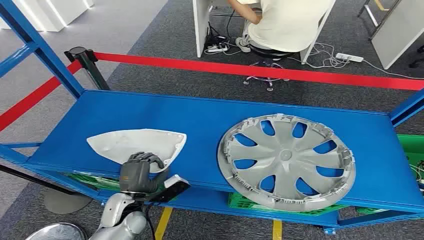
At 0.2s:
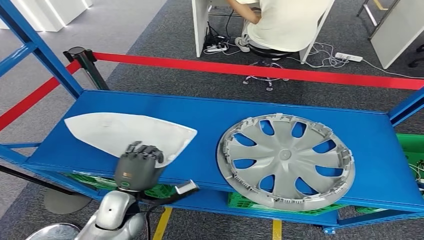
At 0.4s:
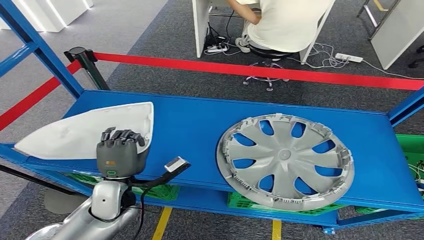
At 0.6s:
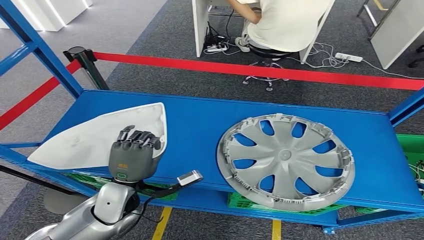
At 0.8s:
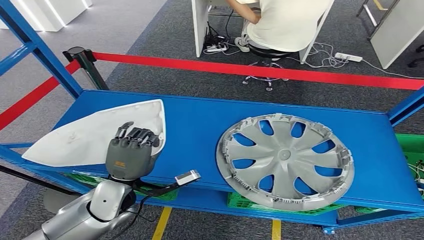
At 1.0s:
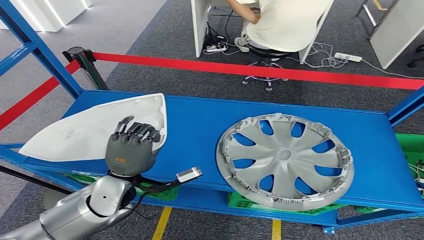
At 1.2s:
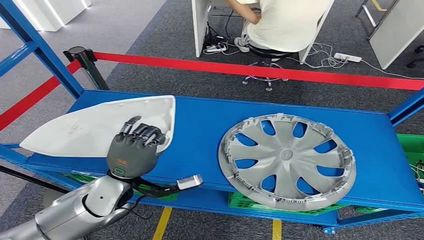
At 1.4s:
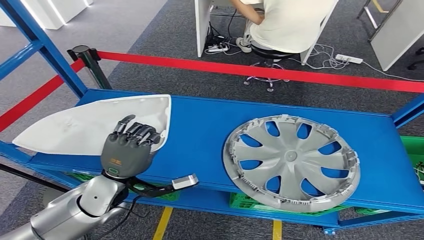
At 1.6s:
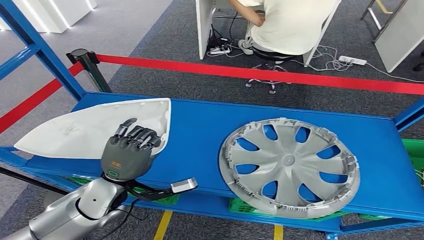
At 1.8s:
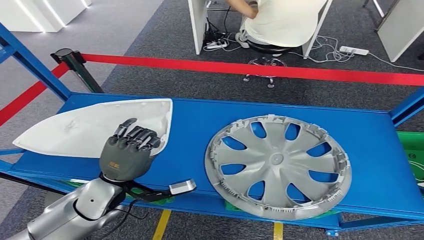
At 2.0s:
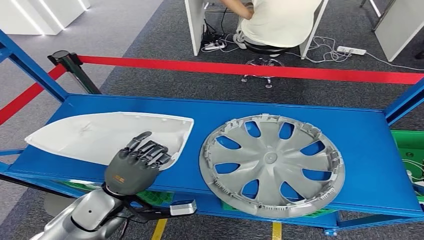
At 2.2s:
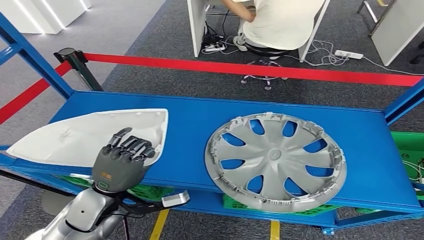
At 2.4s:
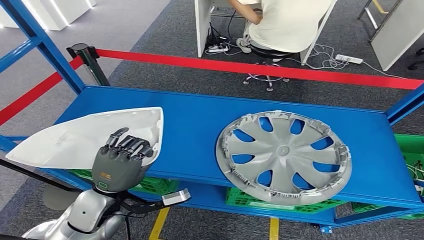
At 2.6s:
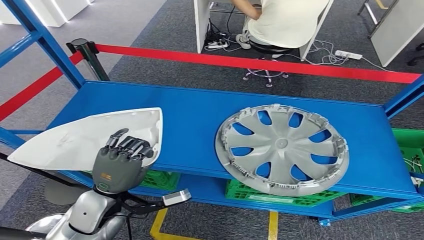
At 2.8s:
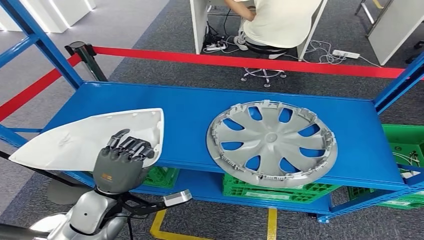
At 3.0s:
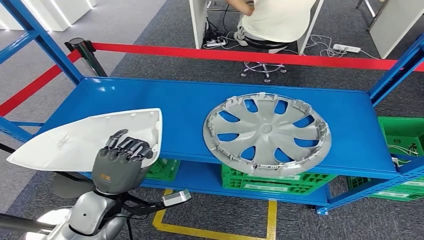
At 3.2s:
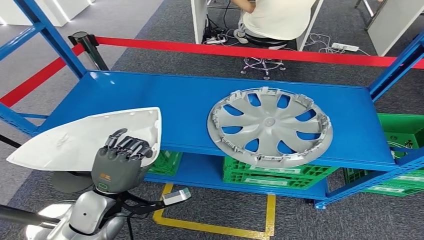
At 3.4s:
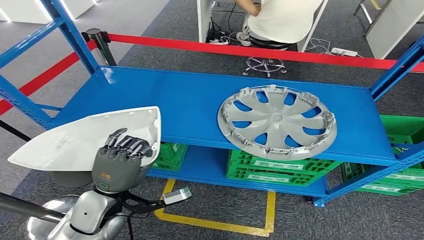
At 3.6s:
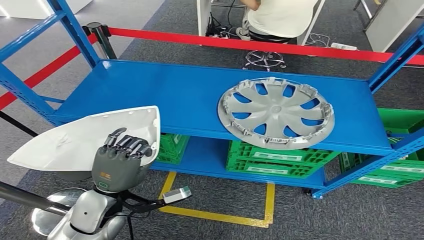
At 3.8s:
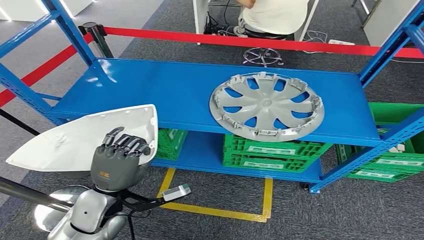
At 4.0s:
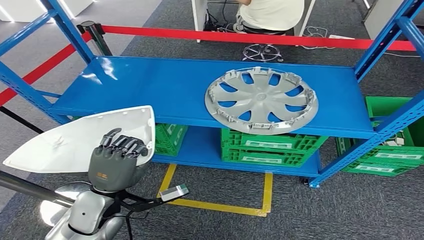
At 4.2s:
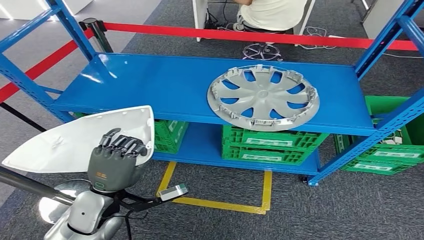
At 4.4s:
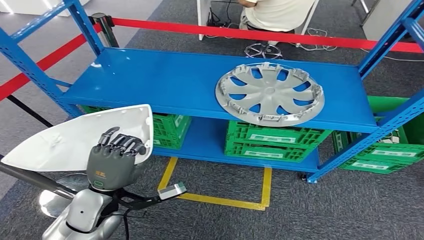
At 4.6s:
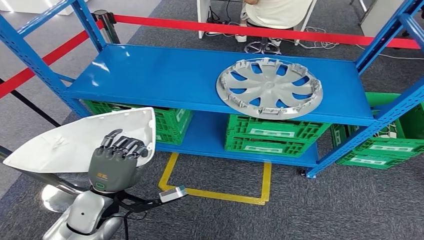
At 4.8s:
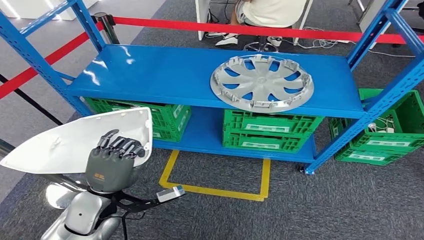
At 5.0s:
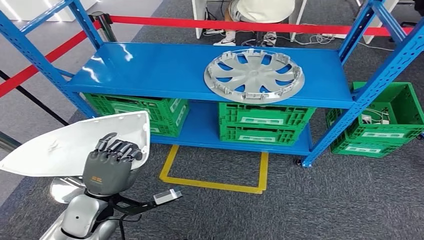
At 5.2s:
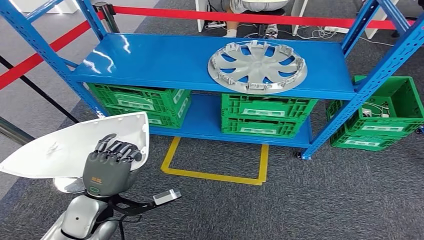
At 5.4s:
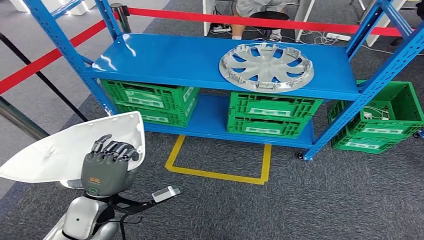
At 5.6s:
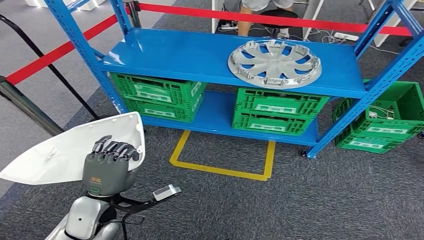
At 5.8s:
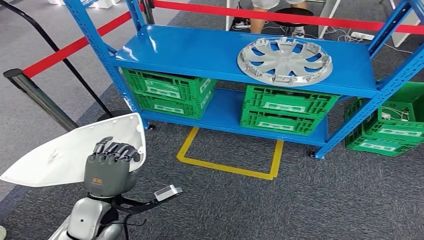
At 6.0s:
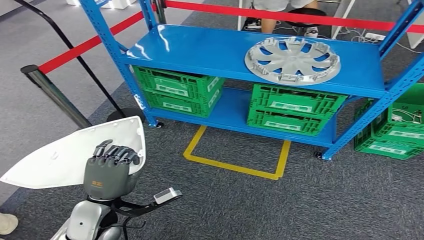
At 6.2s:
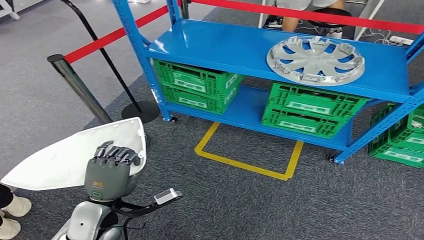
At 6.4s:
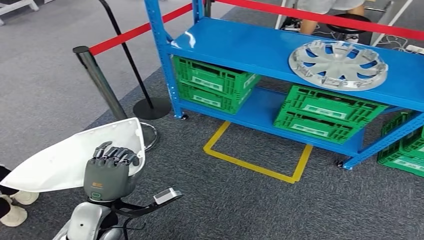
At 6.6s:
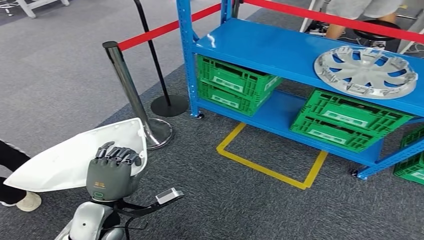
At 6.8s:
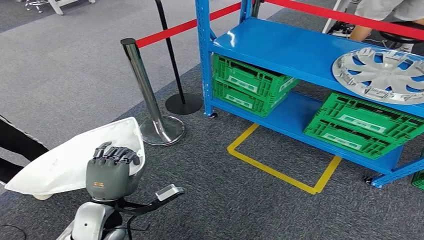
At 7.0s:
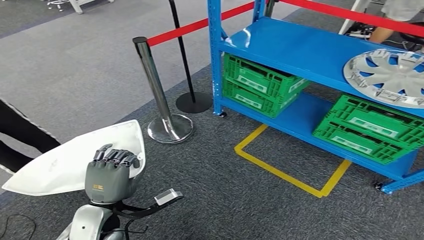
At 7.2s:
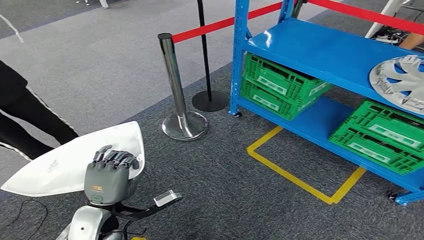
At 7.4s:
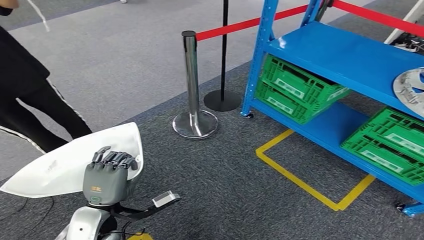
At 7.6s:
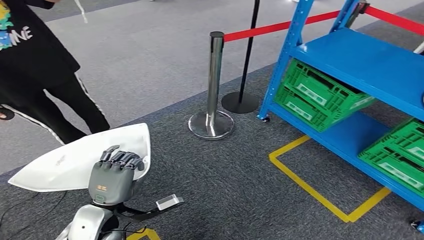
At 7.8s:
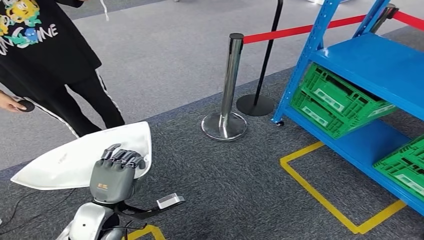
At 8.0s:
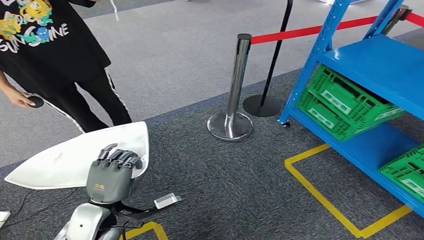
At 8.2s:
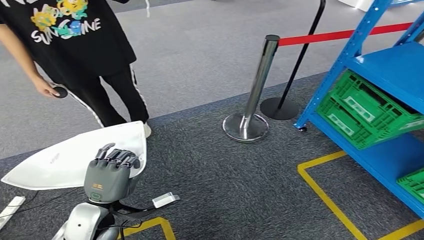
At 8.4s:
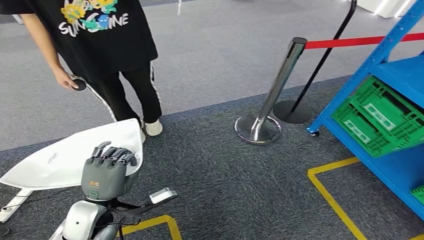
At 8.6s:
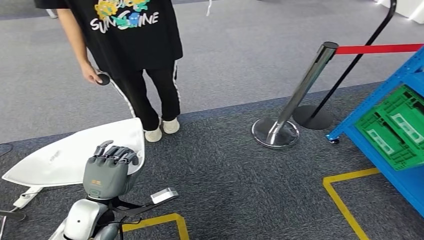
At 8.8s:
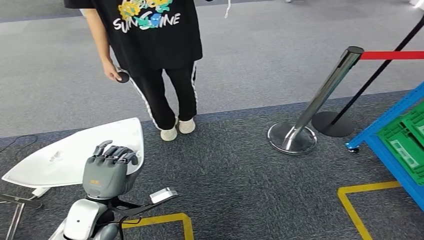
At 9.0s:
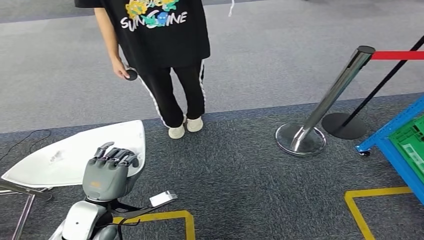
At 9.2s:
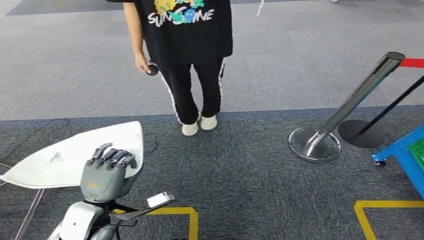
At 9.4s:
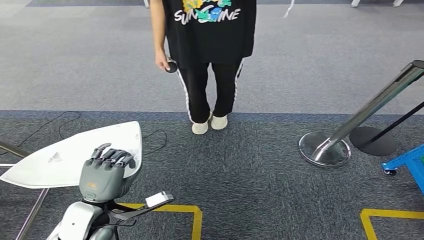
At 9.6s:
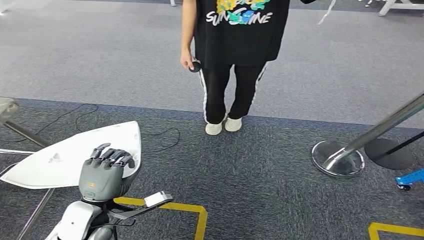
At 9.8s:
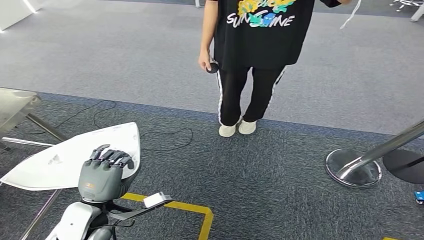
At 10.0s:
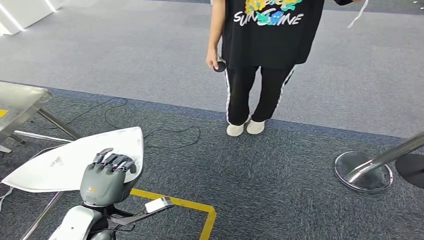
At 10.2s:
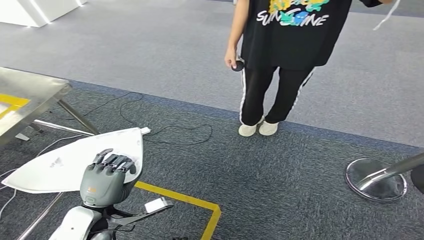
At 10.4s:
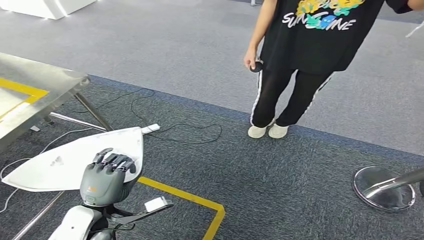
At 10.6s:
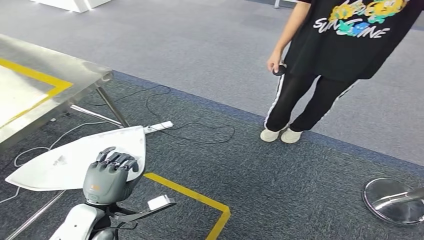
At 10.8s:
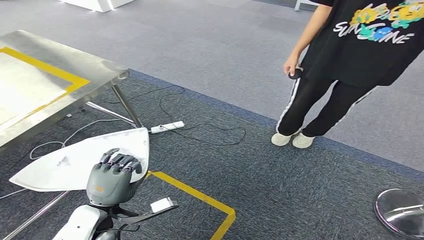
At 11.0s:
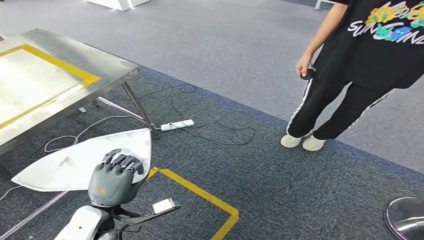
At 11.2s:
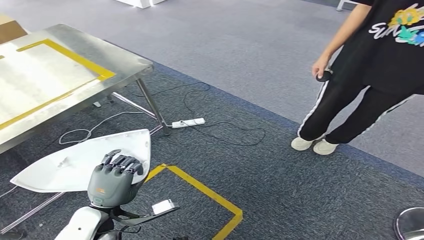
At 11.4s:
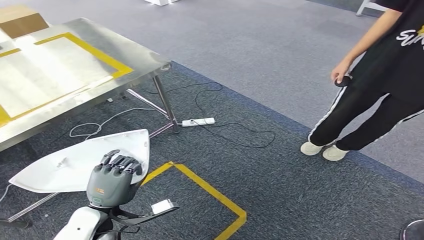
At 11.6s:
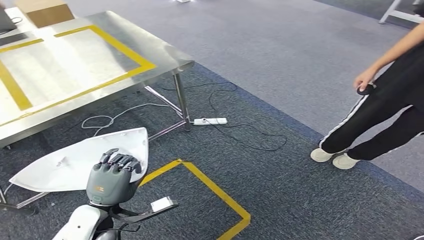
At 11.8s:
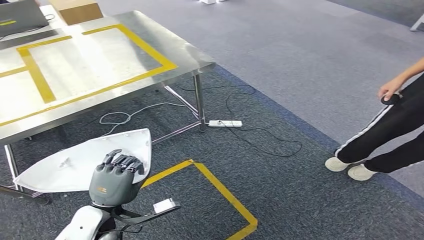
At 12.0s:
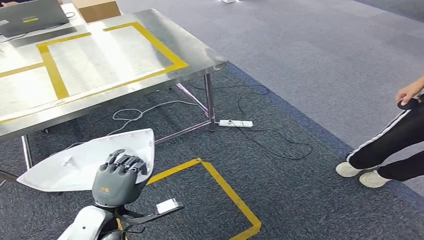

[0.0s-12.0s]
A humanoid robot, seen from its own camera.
Step, 0.0s to 4.0s: Take small components from the rack.

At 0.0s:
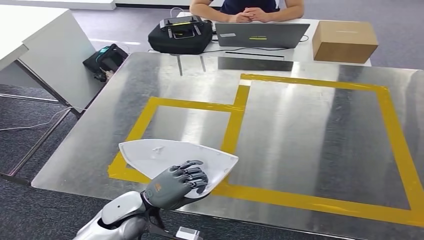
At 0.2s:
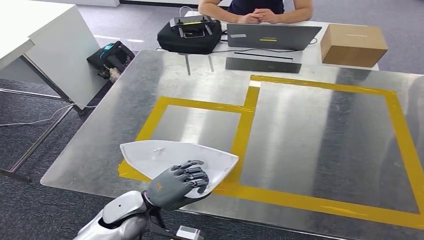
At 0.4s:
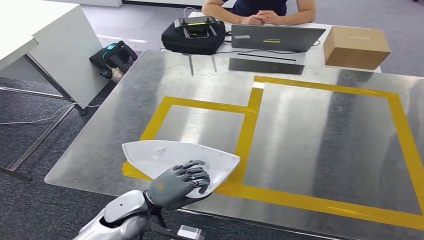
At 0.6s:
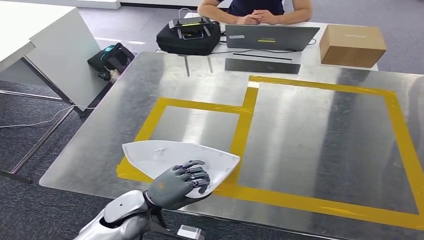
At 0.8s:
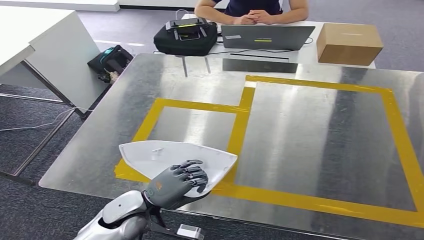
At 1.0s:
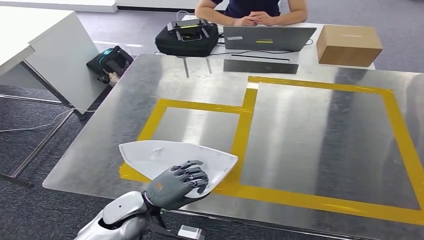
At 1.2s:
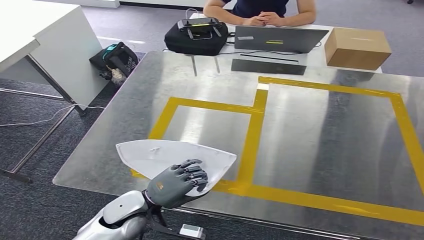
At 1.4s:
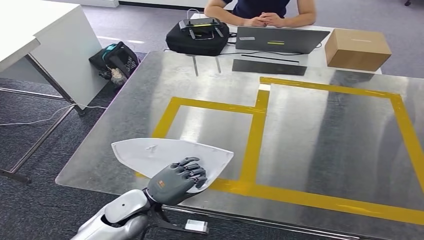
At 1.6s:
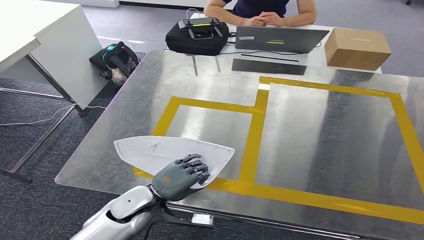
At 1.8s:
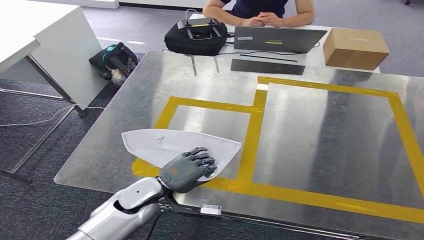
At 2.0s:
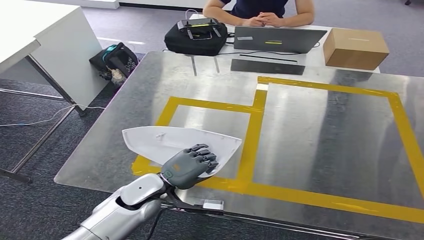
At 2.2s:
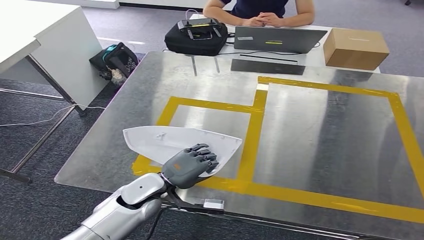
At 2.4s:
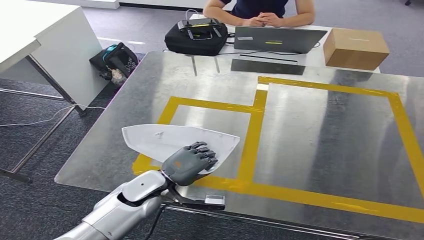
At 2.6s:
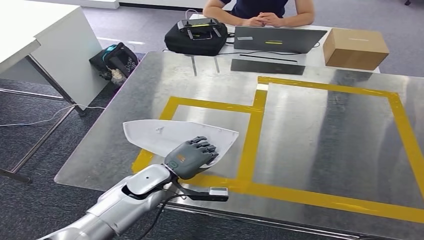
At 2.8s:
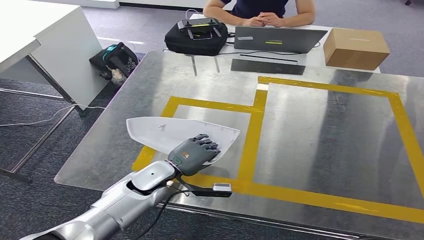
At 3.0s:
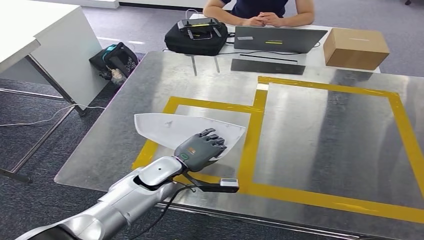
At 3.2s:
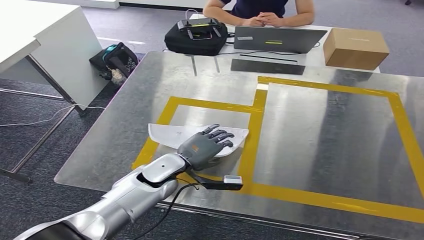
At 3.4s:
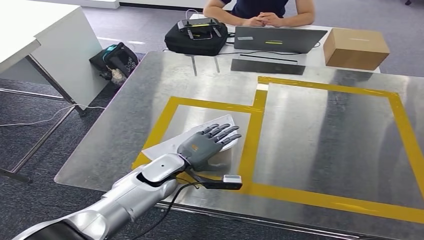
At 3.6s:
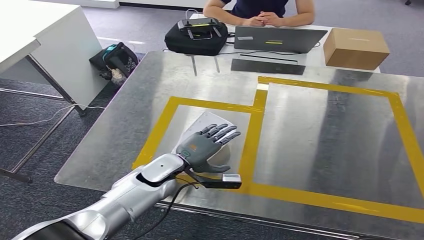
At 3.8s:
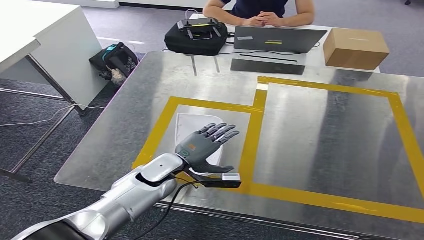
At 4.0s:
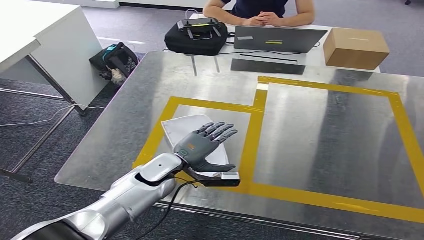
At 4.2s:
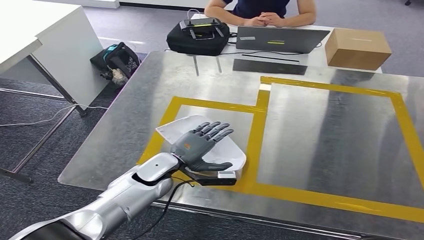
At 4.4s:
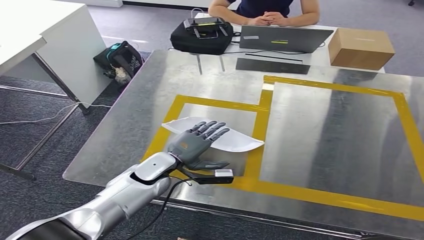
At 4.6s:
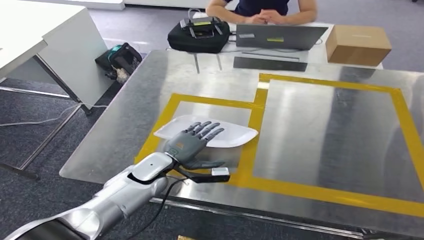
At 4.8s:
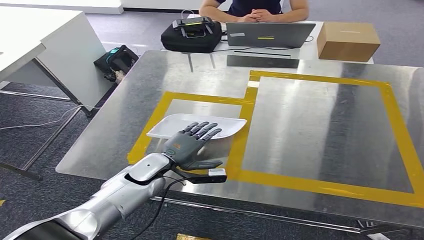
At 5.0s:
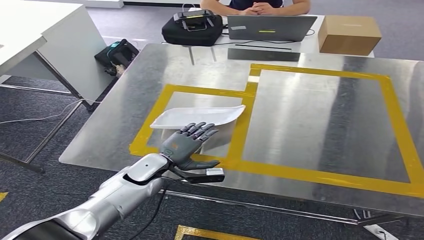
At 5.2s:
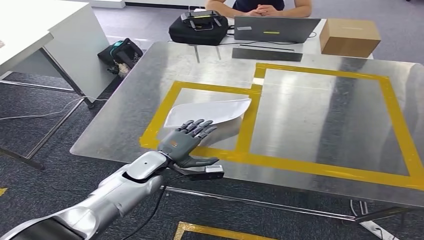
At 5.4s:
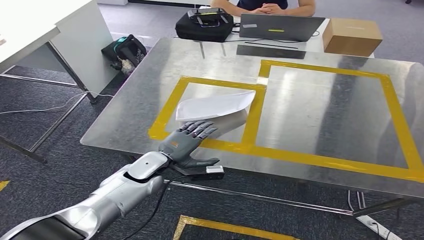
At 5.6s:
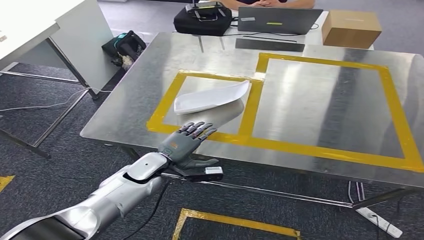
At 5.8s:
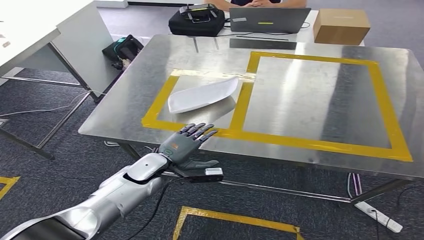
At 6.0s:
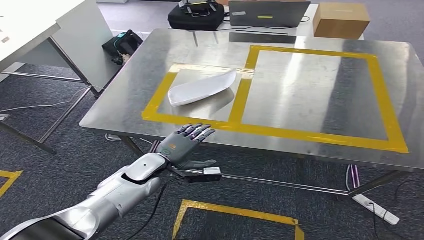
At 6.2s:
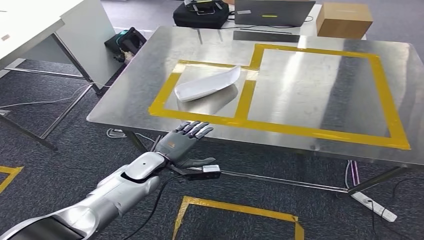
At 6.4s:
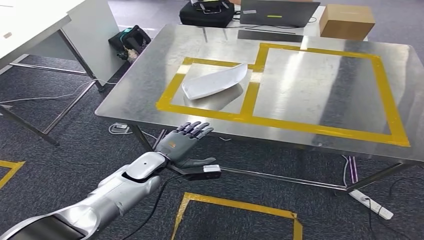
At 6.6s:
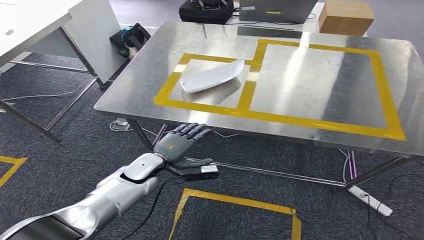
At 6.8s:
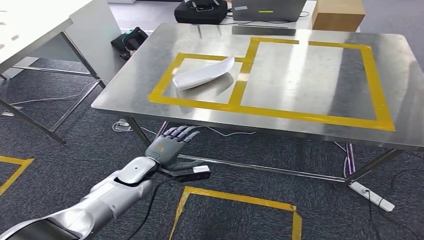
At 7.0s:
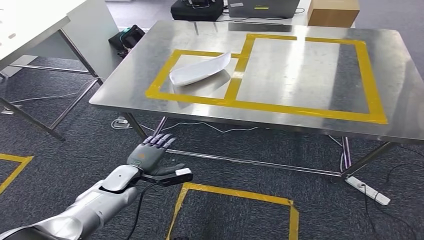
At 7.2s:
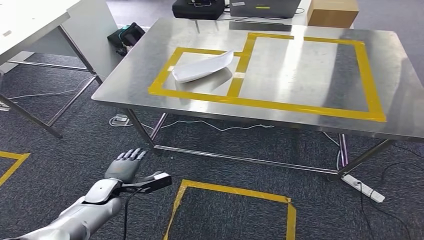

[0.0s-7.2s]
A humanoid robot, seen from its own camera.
Step, 0.0s to 6.6s: Insert the small parts into the corresponding holes on the workbench.
1.4s to 2.8s: The left hand moves forward, approximately 10 cm.
